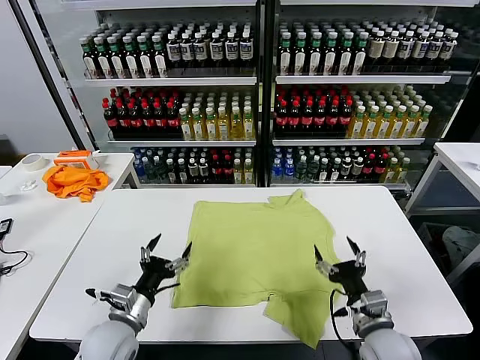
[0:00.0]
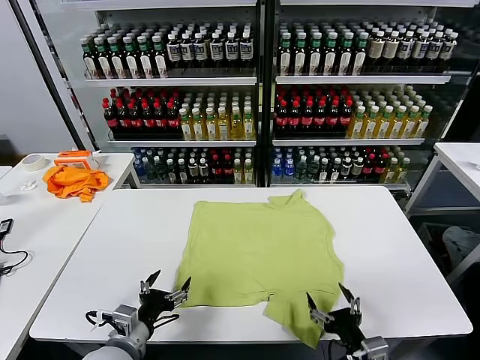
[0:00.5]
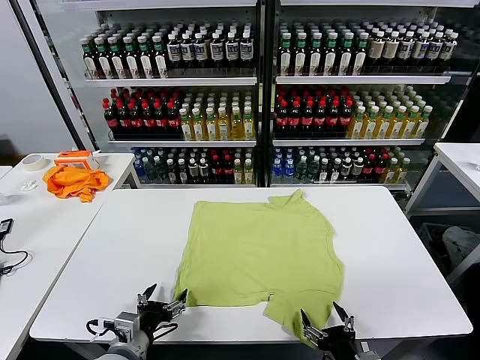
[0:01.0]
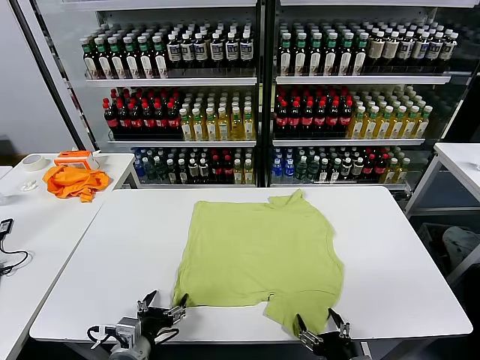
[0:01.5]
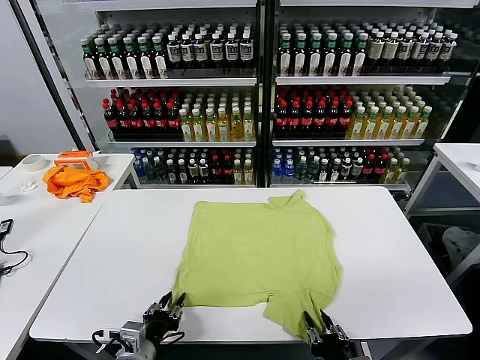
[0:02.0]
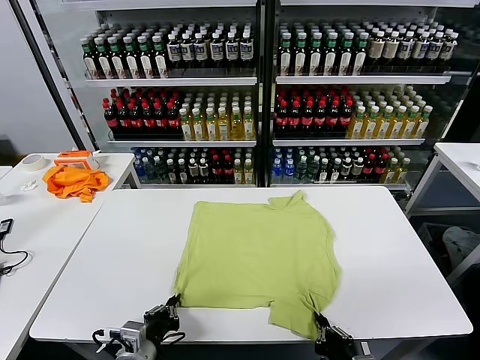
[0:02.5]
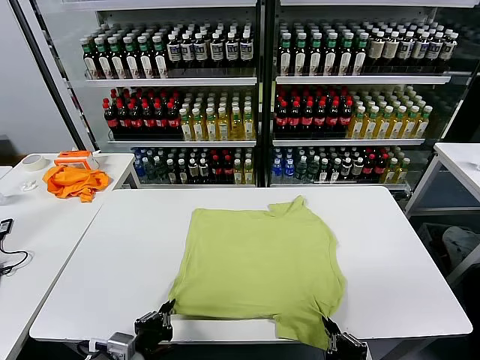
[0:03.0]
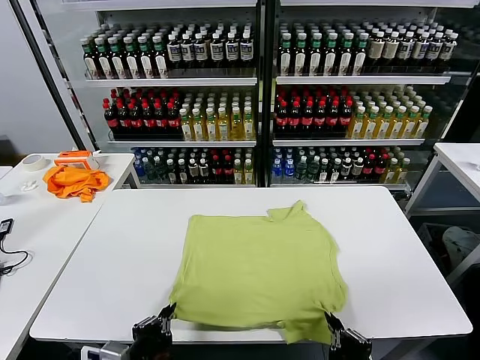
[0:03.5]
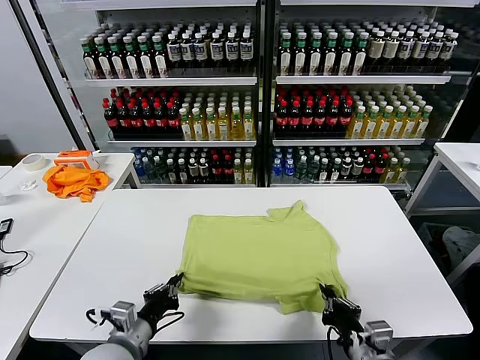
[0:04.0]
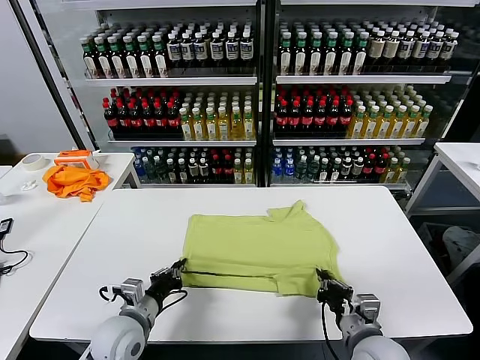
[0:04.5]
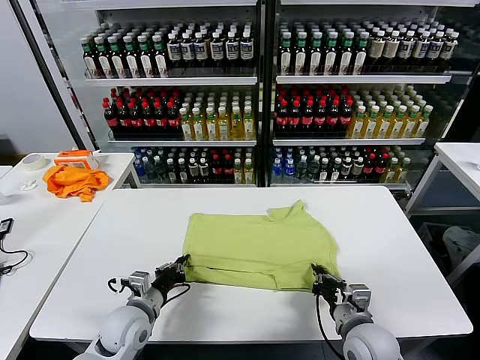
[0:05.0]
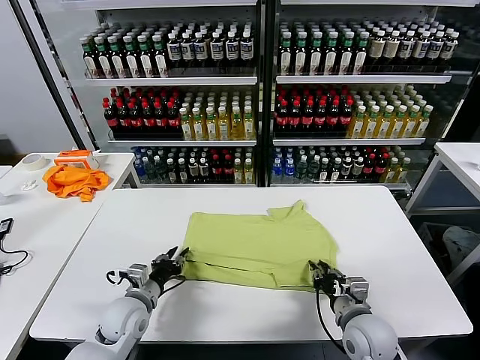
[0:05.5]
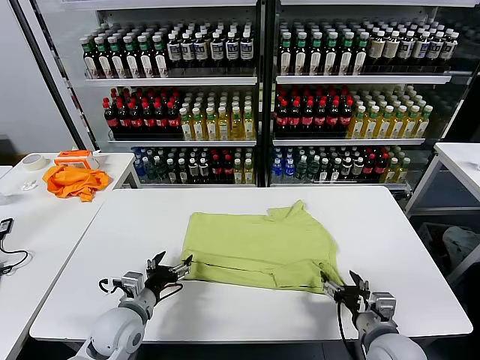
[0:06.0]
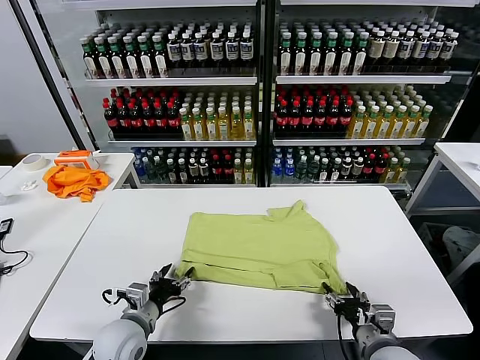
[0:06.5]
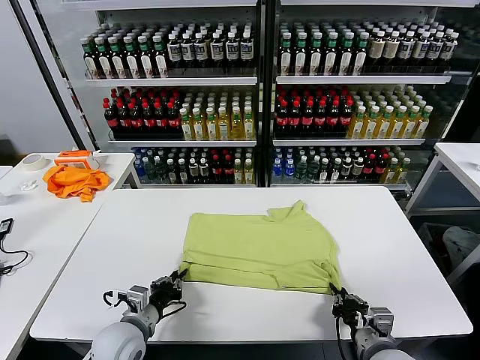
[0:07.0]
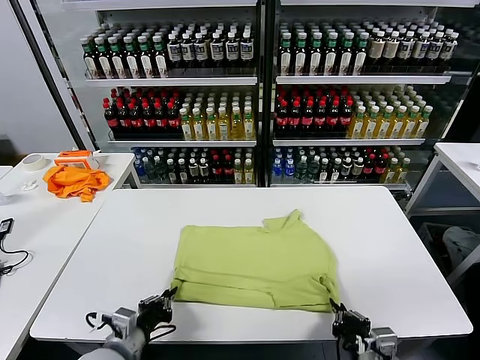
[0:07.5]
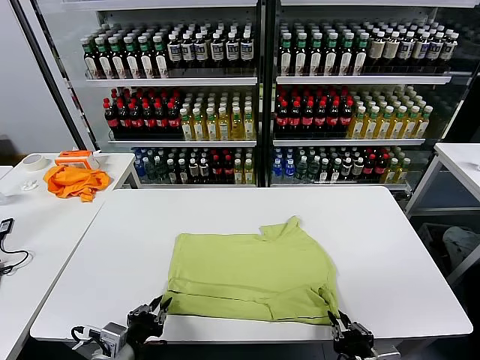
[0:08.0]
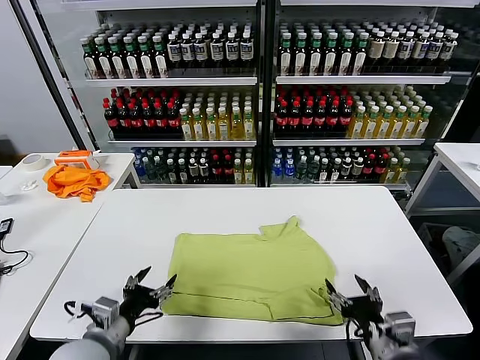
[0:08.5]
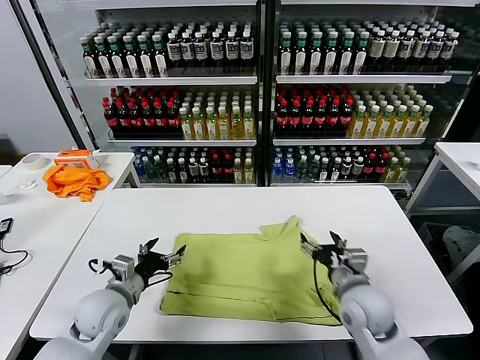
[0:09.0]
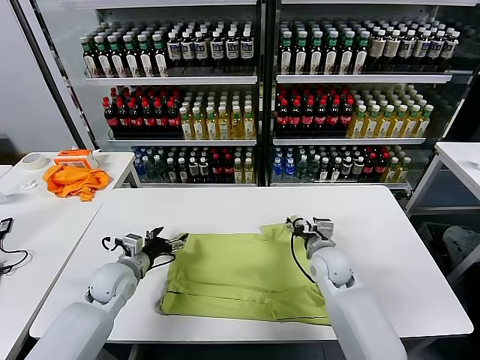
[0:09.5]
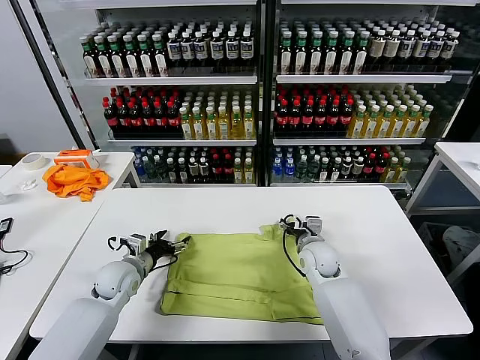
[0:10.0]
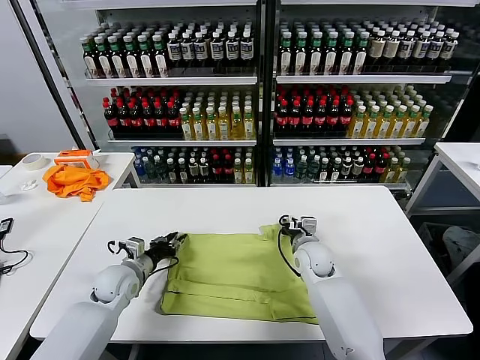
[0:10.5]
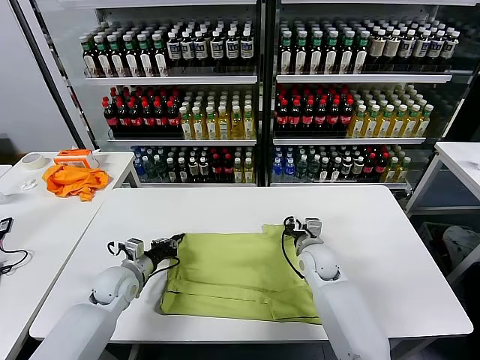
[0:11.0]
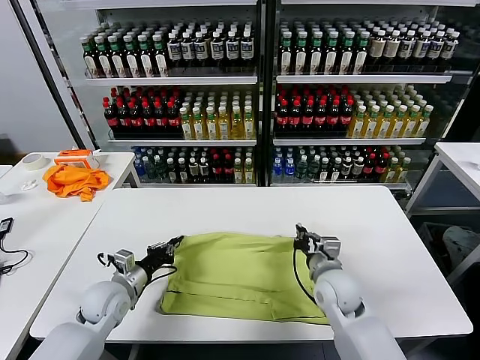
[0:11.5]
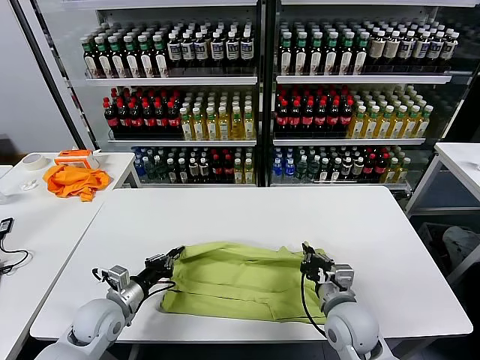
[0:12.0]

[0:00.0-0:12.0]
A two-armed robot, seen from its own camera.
Task of the whole recording: fold and organize the clothes.
Step, 0:00.0 to 0:02.0: use both grippers simultaneously to clamp the lower edge of the clothing fabric.
Step, 0:02.5 to 0:05.5: use both grippers to drag the lower edge of the fabric forward and fold it over the upper edge.
Step, 0:06.0 to 0:08.0: Drag the clothes downward with both gripper.
Step, 0:08.5 to 0:10.5: use both grippers simultaneously to clamp the upper edge of the clothing fabric.
0:02.0 to 0:04.0: The right gripper shifts about 5 cm forward, while the left gripper reaches approximately 5 cm backward, then returns, and closes up.
0:04.0 to 0:06.0: The left gripper moves forward, roughly 10 cm, and opens; the right gripper opens its fingers.
0:06.0 to 0:08.0: The grippers both shift backward by some 10 cm. The left gripper closes its fingers, while the right gripper closes up.
0:08.0 to 0:10.0: Both grippers move forward, about 30 cm. The left gripper opens up. The right gripper opens.
0:10.0 to 0:12.0: The left gripper shifts some 10 cm backward, and closes its fingers, while the right gripper moves backward, some 20 cm, and closes.

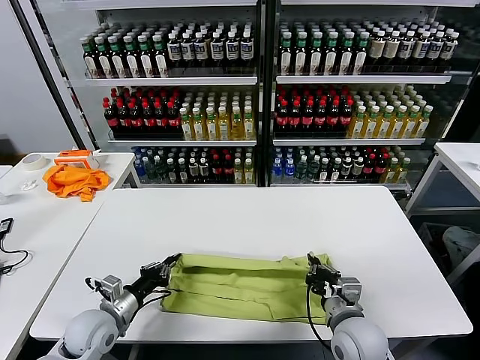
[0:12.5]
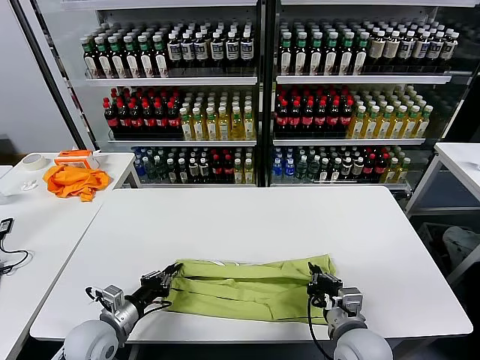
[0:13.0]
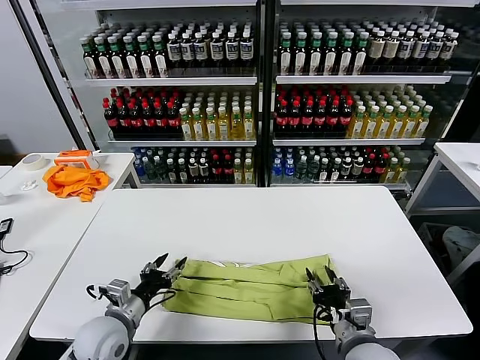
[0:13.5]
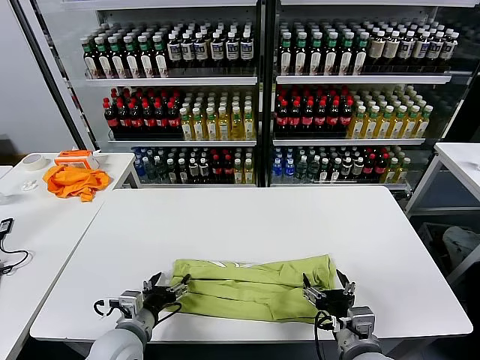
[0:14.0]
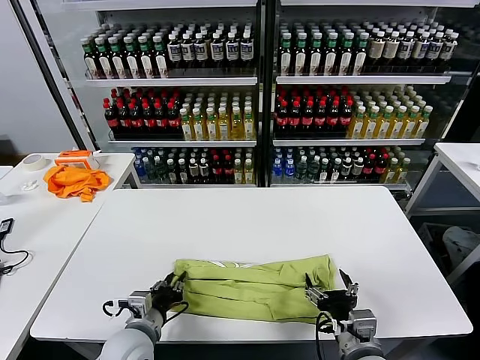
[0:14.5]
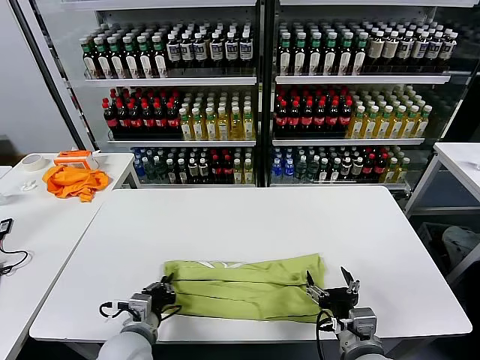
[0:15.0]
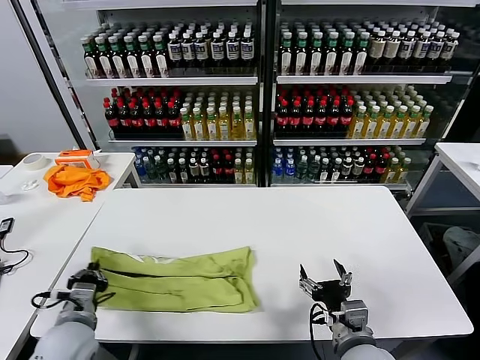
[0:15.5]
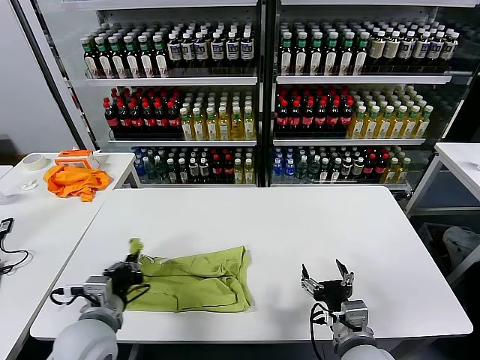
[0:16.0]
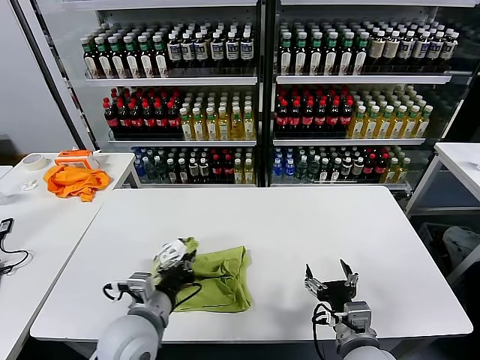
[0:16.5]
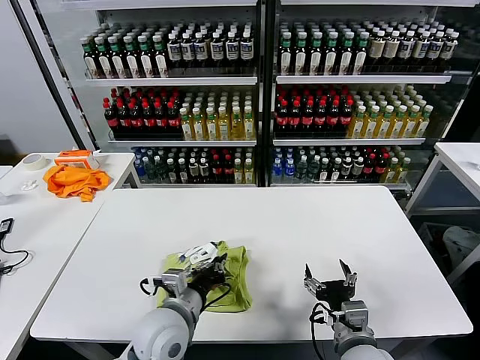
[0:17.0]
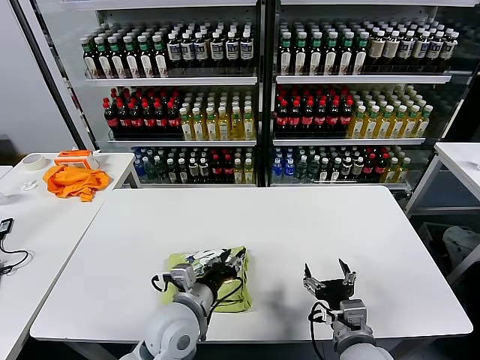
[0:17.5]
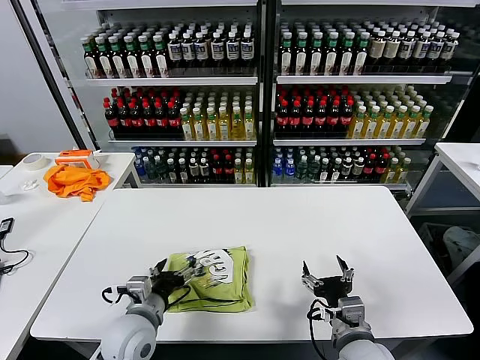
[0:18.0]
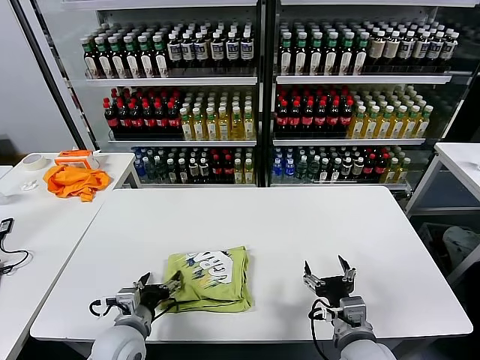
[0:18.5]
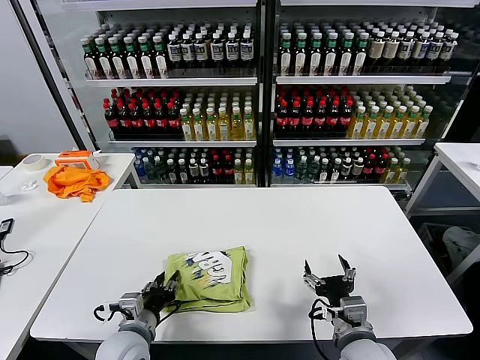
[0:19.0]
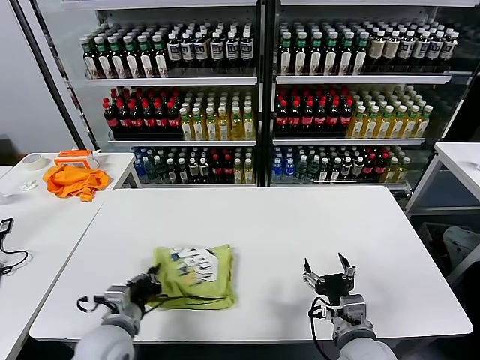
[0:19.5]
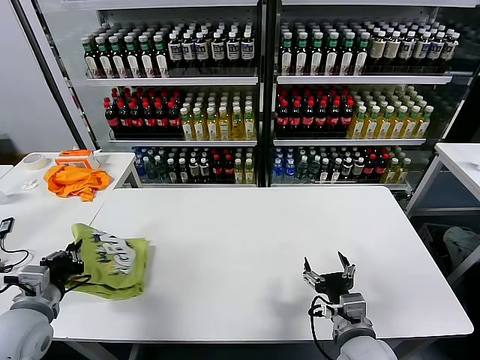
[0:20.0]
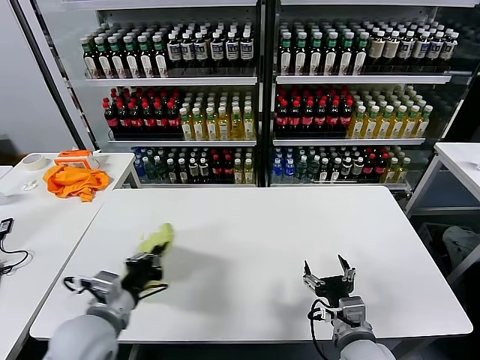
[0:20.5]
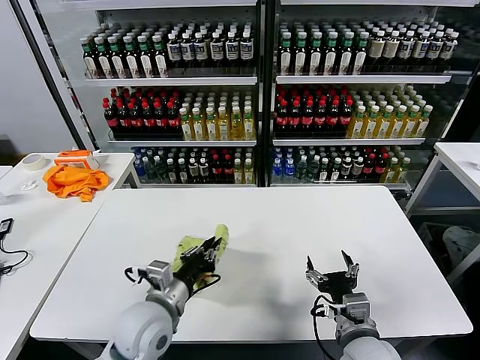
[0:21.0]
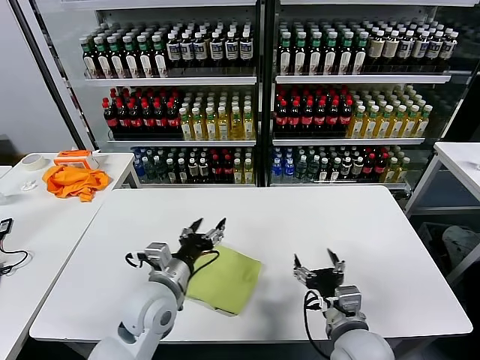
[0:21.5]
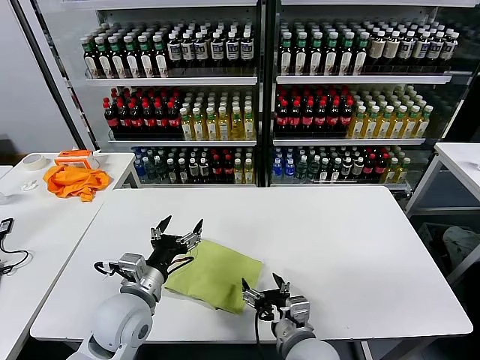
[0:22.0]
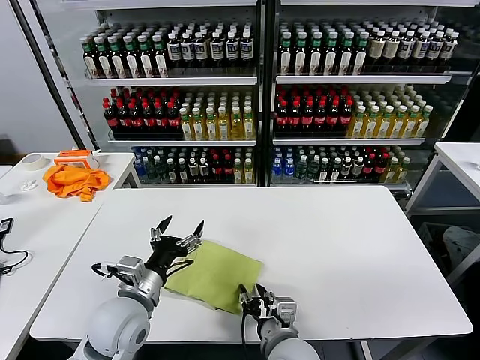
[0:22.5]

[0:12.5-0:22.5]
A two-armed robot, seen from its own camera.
Task of the whole recording: fold and organize the clothes.
Step, 0:13.5 to 0:14.5: use the left gripper to clamp the left edge of the fabric.
Step, 0:15.0 to 0:17.5: use the left gripper to drag the left edge of the fabric to the left and folds it over the right edge.
Step, 0:18.0 to 0:21.0: Flip the folded clothes over with left gripper.
0:12.5 to 0:14.5: The right gripper travels backward by about 5 cm, and opens up, while the left gripper is displaced to the right by some 10 cm, and opens.
0:14.5 to 0:16.5: The left gripper is displaced upward by some 10 cm, moves roughly 10 cm to the left and comes back, and closes its fingers.
0:16.5 to 0:18.5: The left gripper travels downward by roughly 10 cm, reaches some 10 cm to the right, then returns, and opens its fingers.
0:18.5 to 0:20.5: The left gripper moves upward, some 10 cm, moves roughly 15 cm to the left and comes back, and closes up.
0:20.5 to 0:22.5: The left gripper goes about 5 cm to the right, and opens up, while the right gripper heads to the left, covering some 15 cm, and closes up.

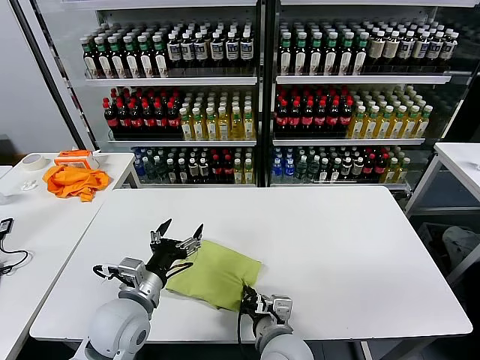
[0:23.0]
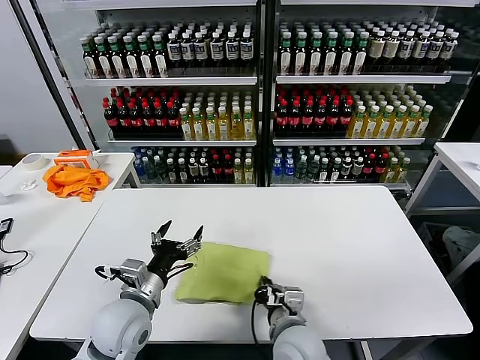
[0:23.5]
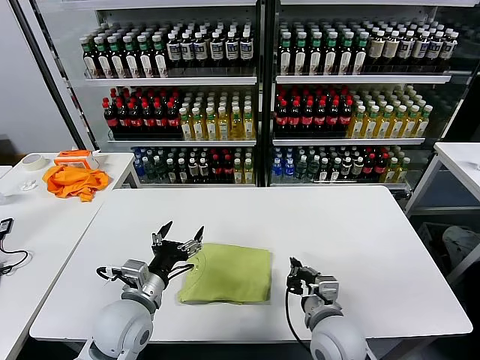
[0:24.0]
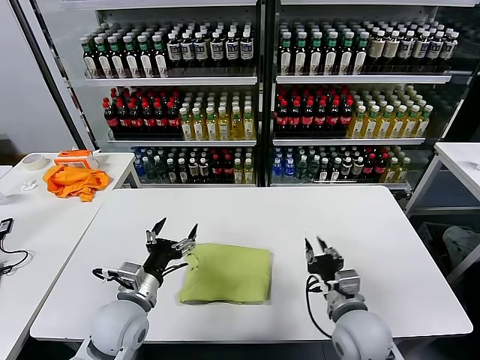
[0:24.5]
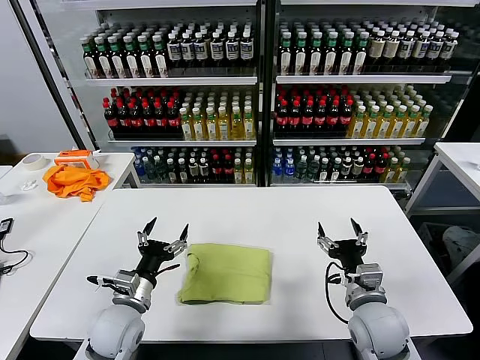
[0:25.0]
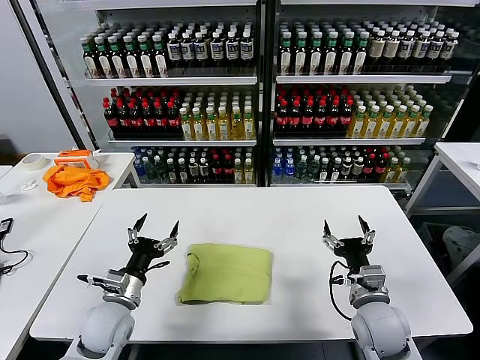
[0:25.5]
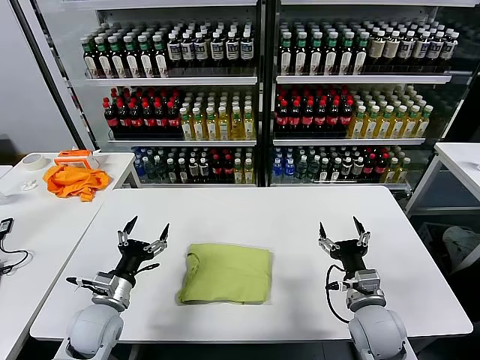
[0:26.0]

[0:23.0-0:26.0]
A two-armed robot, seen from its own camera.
Task of the whole recording: fold and organize the clothes.
0:23.0 to 0:24.5: The right gripper moves to the right, some 15 cm.
0:24.5 to 0:26.0: The left gripper heads to the left and downward, covering about 10 cm. The right gripper travels to the right by approximately 5 cm, and opens its fingers.
